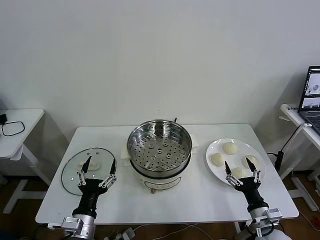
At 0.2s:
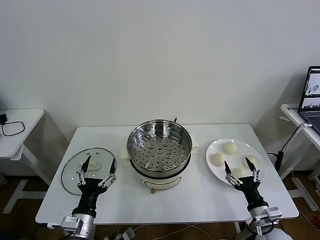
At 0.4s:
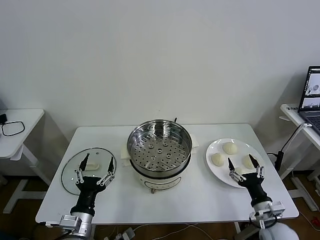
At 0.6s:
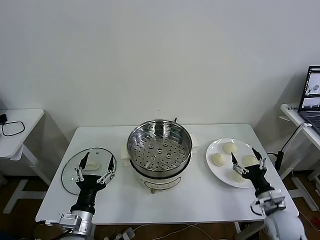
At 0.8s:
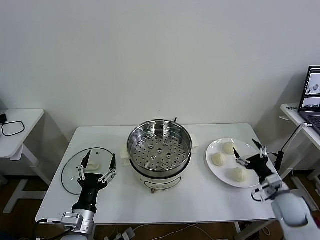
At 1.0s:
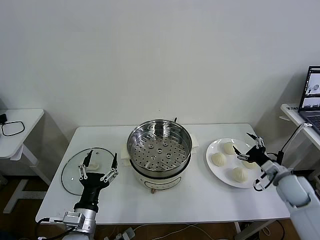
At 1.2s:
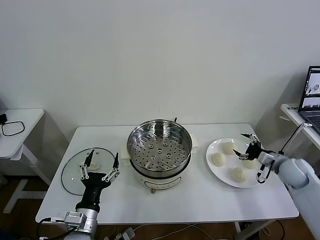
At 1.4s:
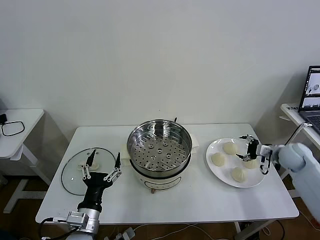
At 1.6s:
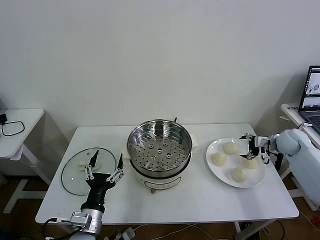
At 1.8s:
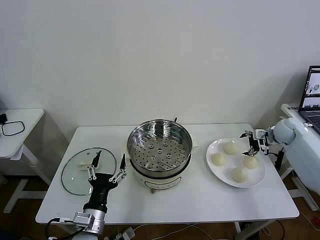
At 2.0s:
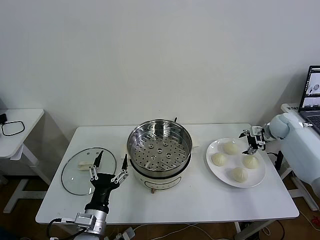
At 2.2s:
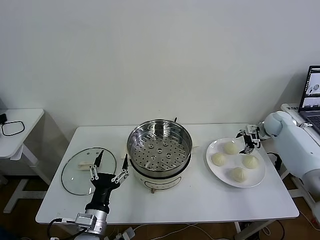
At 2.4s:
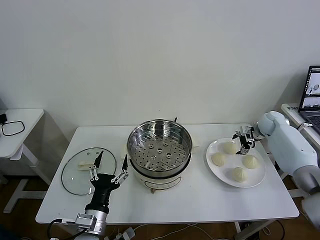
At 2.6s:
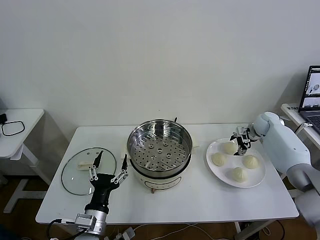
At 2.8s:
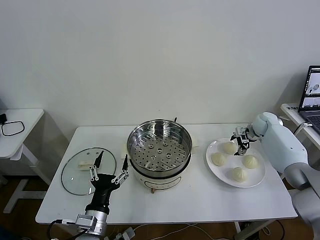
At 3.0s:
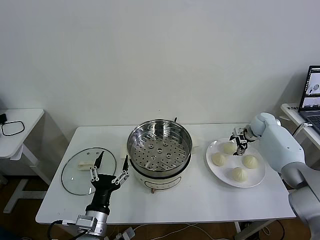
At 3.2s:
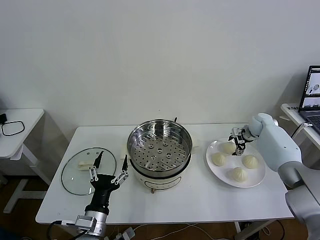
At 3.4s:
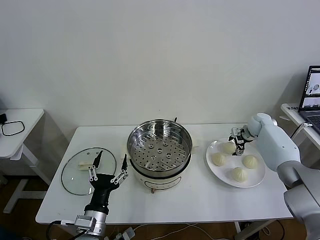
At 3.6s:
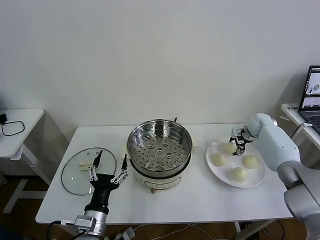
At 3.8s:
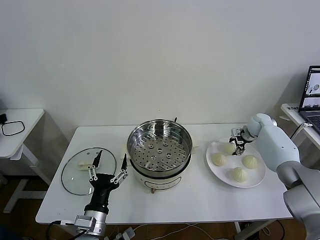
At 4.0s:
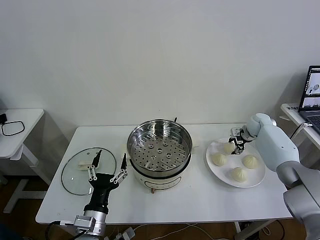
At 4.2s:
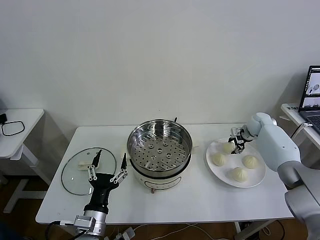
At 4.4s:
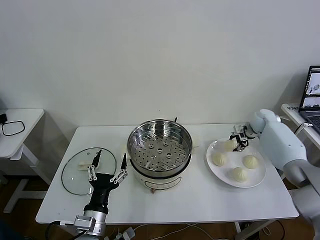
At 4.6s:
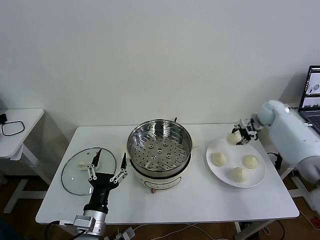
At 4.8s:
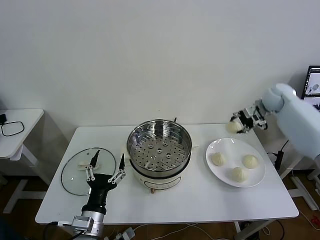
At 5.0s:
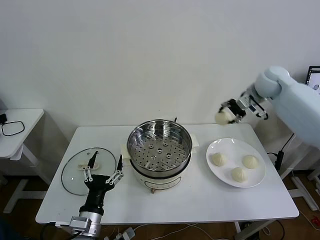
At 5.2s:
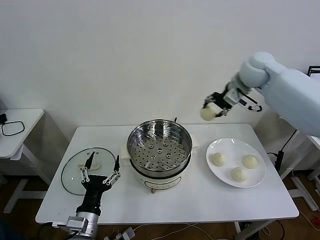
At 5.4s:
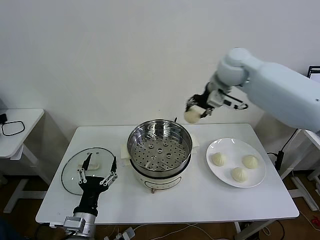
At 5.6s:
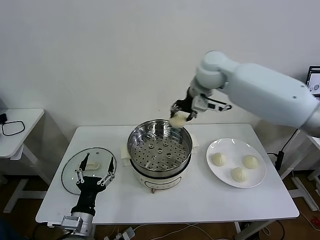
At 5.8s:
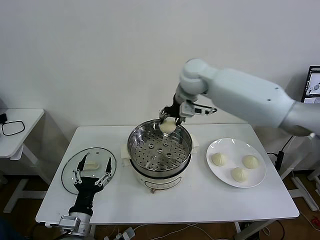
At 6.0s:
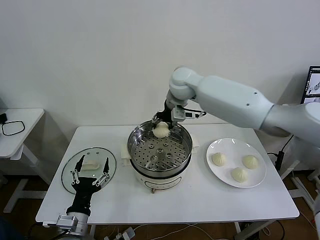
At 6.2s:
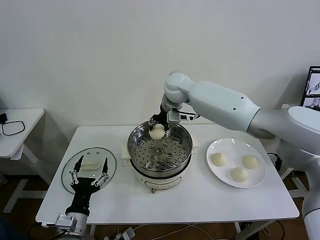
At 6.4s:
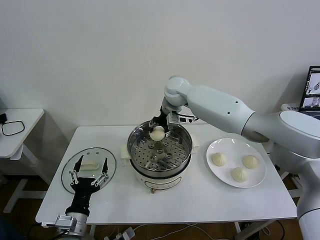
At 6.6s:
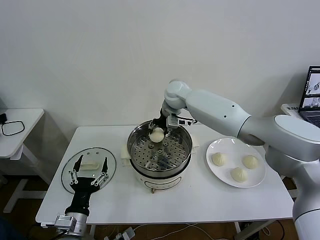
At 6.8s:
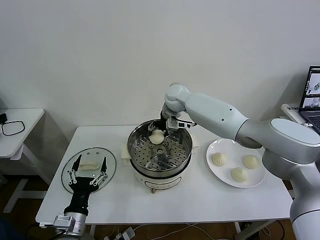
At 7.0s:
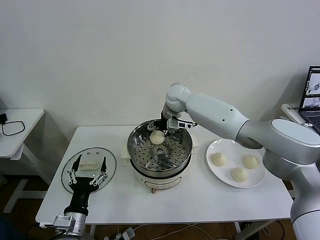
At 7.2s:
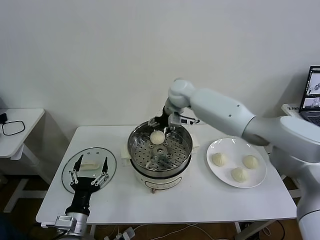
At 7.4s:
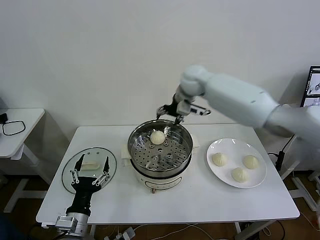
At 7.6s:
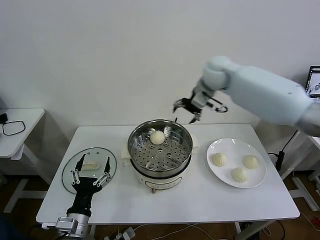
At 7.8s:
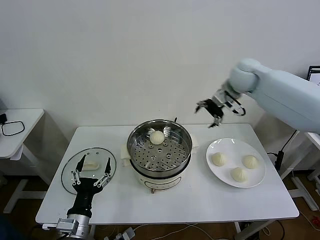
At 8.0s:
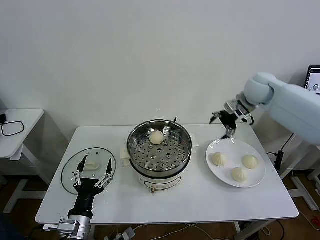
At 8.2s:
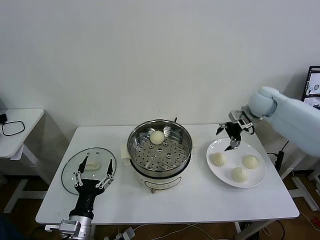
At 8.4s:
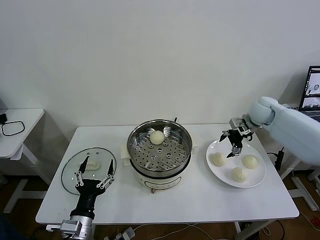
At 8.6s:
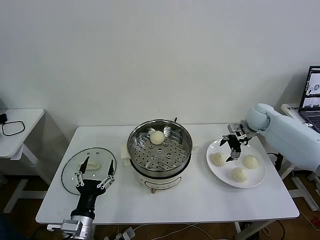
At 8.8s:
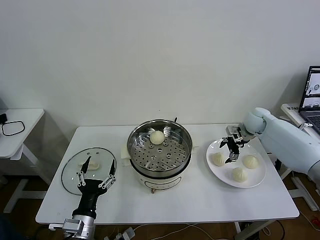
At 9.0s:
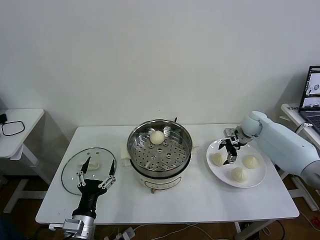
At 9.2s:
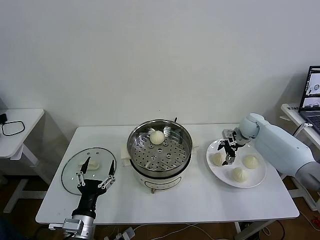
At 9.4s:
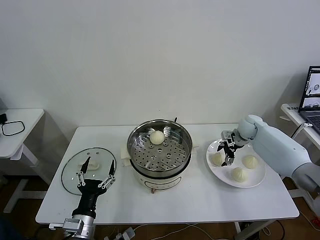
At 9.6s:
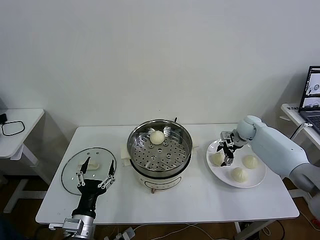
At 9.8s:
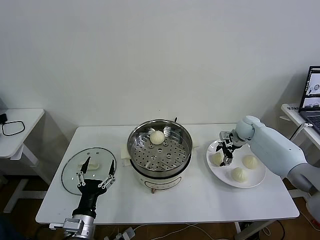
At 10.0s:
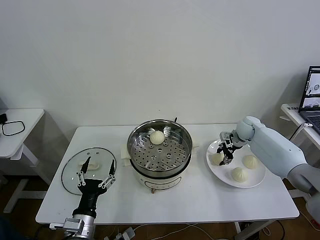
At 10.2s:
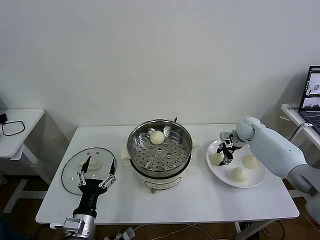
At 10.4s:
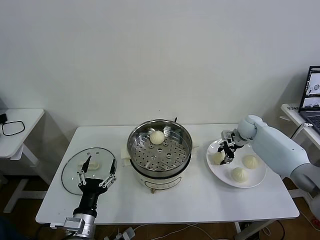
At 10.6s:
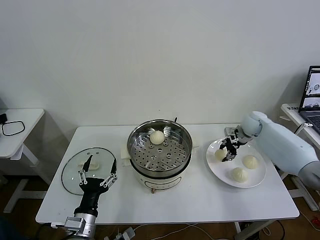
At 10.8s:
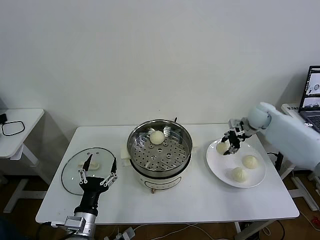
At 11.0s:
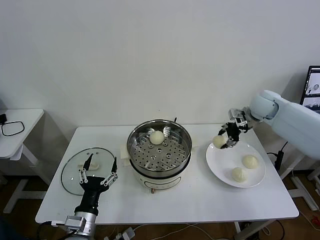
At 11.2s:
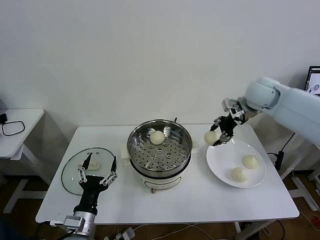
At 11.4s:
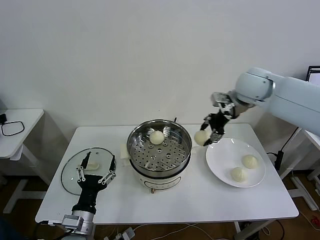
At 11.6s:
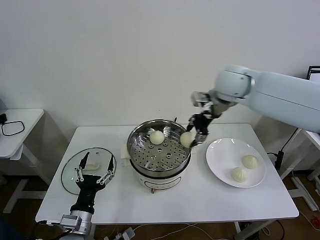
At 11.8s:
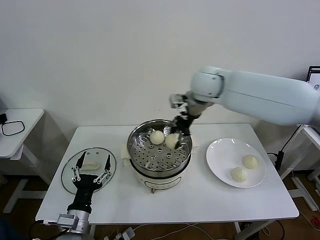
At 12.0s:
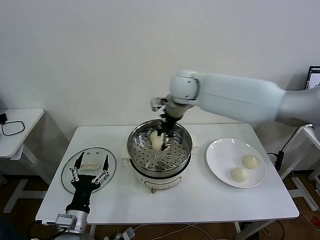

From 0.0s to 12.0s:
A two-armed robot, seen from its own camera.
Task of the whole recording: take steamed baozi put them in steamer then cover it.
Step, from 0.0s to 3.6s: Grasp the baozi in the plate with right gripper.
Step, from 3.8s to 7.0s: Place the baozi on the steamer with right gripper.
Step, from 7.2s to 10.0s: Grasp the baozi in the plate with right gripper.
From 1.6s to 3.0s: The right gripper is displaced forward and to the left by roughly 10 cm.
From 3.0s to 4.4s: The right gripper closes its fingers.
From 4.4s to 6.0s: The left gripper is displaced to the left by approximately 5 cm. Meanwhile the right gripper travels to the left and upward by about 40 cm.
From 6.0s to 7.6s: The right gripper is displaced to the right by roughly 15 cm, and opens its fingers.
From 7.6s to 9.0s: The right gripper moves downward and to the right, approximately 25 cm.
From 9.0s to 10.4s: The right gripper closes.
From 10.4s to 12.0s: The right gripper is displaced to the left and upward by some 40 cm.

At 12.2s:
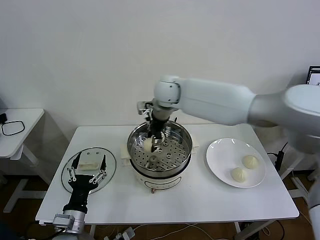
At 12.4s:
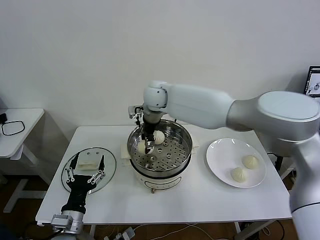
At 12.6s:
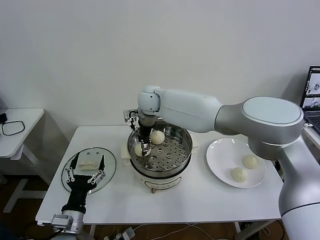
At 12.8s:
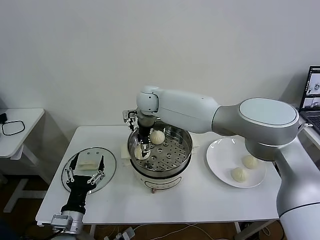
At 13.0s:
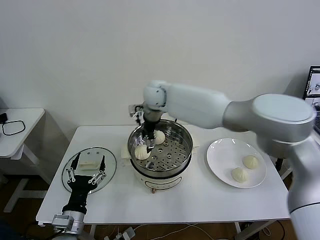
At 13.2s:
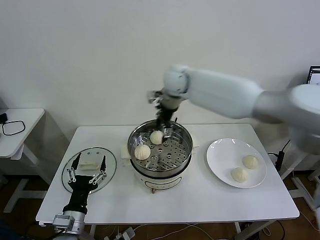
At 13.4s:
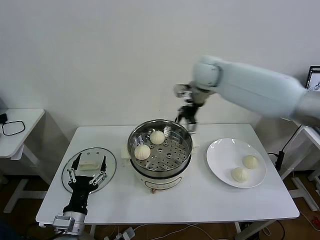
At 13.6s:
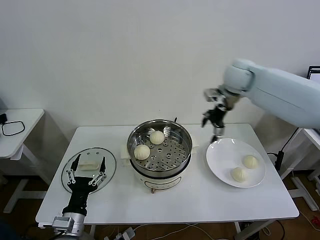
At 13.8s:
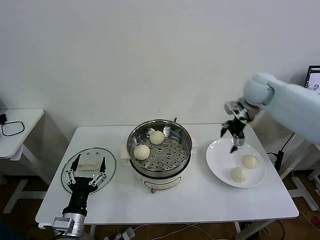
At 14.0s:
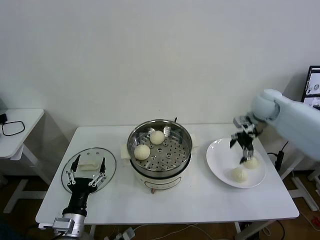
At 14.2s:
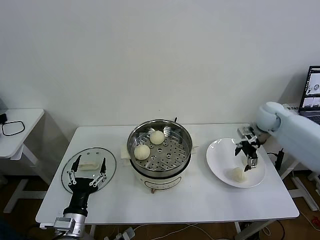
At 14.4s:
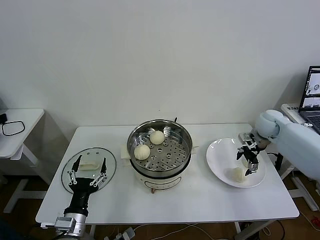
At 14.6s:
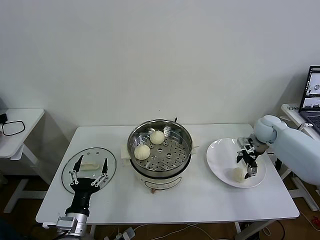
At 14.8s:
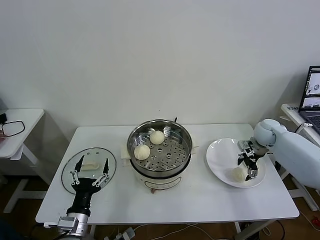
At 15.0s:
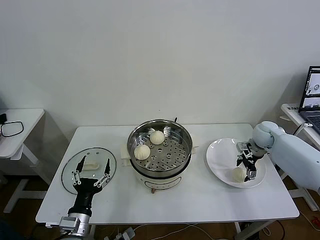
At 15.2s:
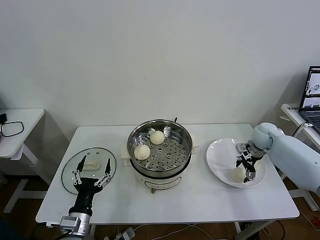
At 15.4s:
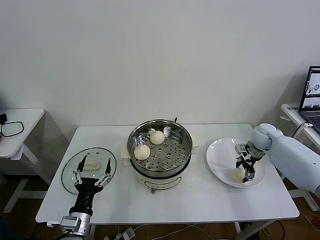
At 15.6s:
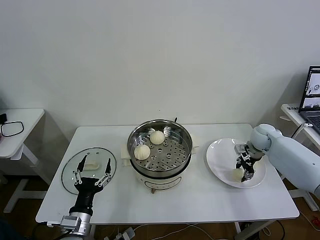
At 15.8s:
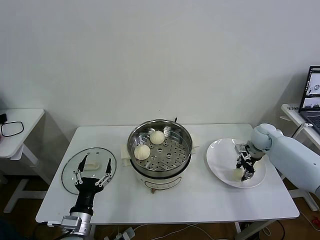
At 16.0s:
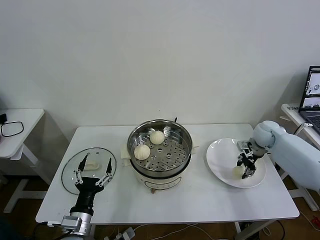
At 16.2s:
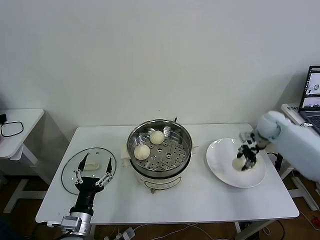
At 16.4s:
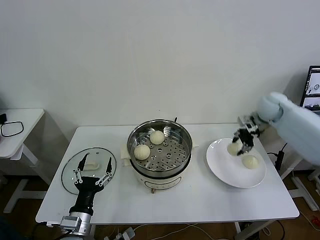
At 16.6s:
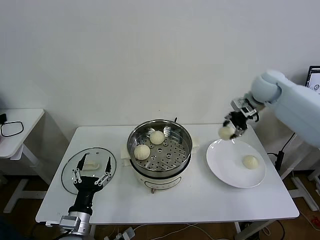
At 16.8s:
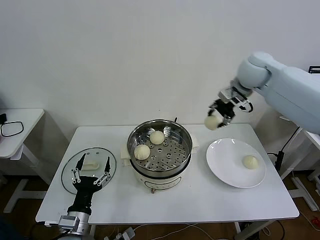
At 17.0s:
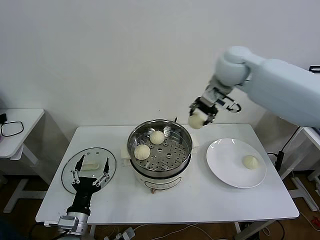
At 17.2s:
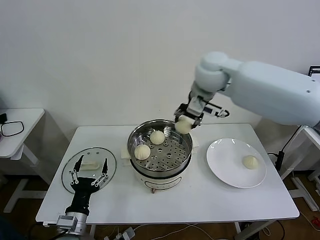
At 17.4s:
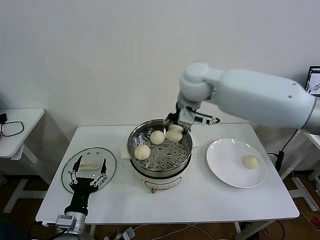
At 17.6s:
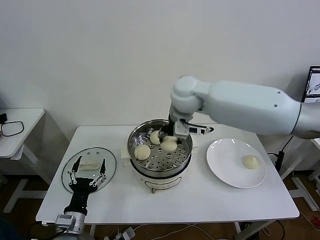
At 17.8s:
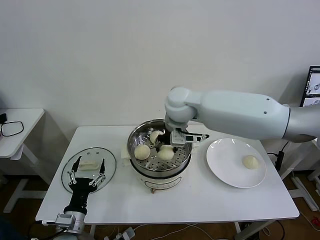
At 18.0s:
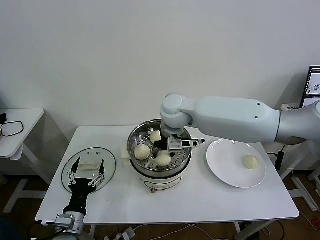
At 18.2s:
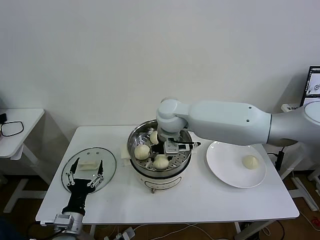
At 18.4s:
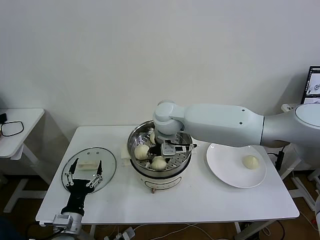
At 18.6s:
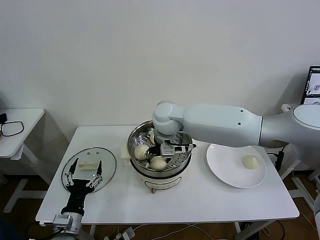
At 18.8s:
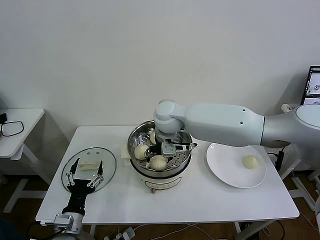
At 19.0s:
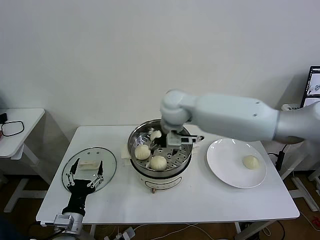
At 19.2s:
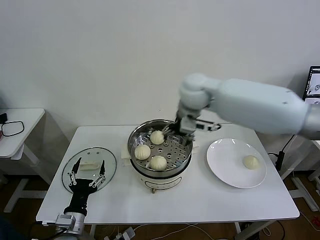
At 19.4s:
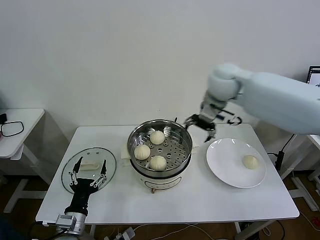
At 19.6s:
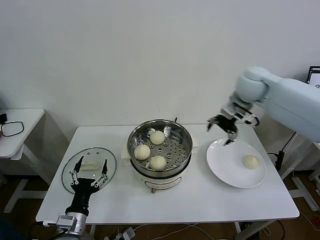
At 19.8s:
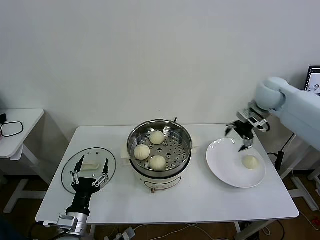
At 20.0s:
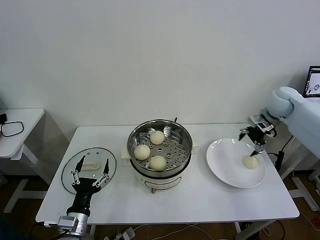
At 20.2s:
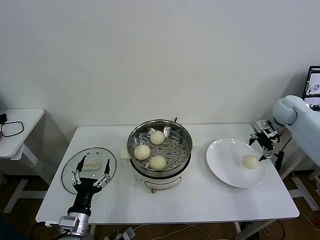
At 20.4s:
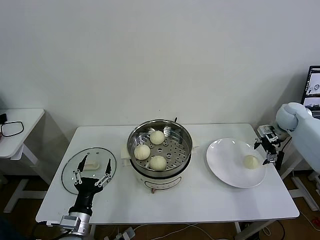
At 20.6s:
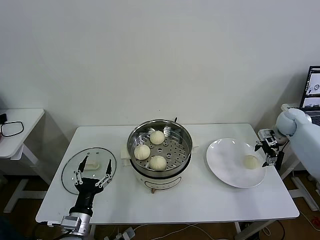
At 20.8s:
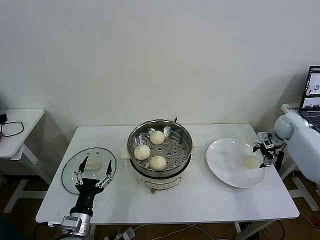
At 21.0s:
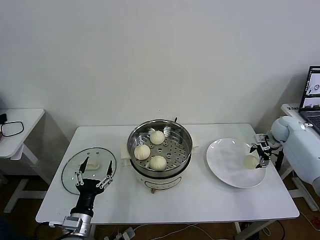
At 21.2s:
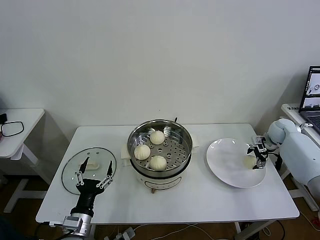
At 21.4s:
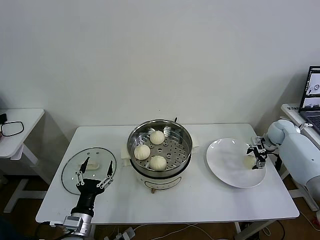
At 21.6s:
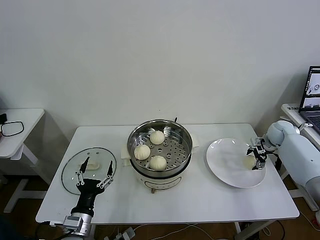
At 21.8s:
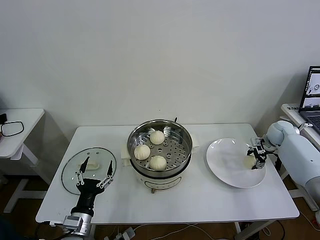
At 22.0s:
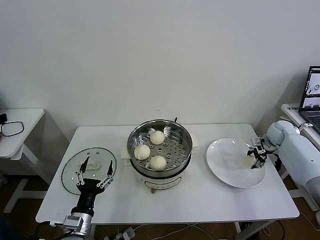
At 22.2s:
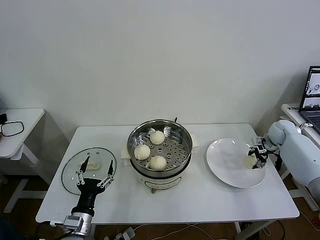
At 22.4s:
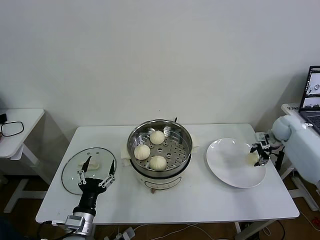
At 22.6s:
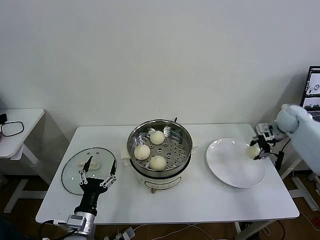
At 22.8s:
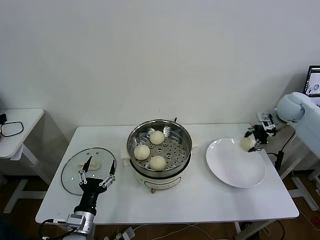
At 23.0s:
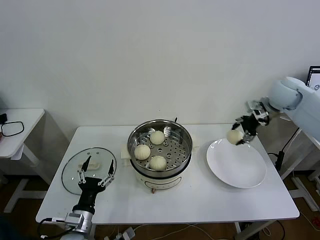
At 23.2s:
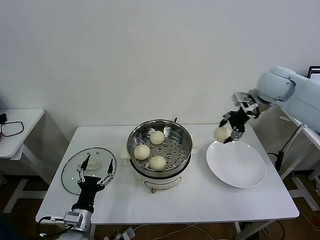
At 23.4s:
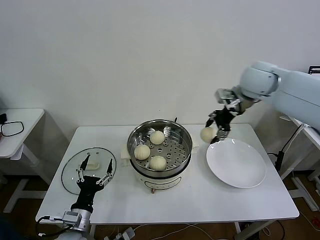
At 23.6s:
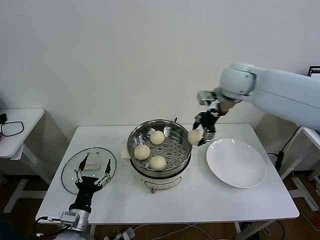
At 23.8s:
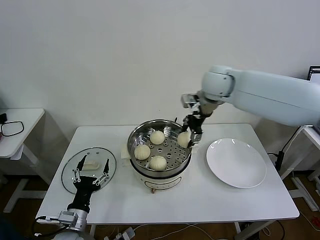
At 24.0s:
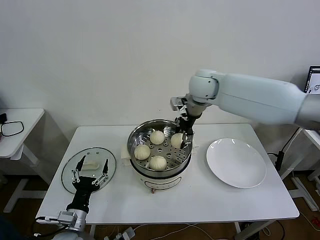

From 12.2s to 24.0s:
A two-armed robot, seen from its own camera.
Task of the whole recording: take steamed baozi put them in steamer then cover it.
Step, from 13.0s to 15.4s: Grasp the baozi in the plate with right gripper.
Step, from 15.8s to 18.4s: Place the baozi on the steamer with right gripper.
Step, from 18.8s to 21.8s: Grasp the baozi in the plate with right gripper.
From 12.2s to 13.6s: The right gripper moves to the right, roughly 25 cm, and opens.
From 13.6s to 15.2s: The right gripper moves downward and to the right, roughly 25 cm.
From 15.2s to 16.6s: The right gripper travels upward by roughly 25 cm, and closes.
From 16.6s to 18.2s: The right gripper shifts roughly 30 cm to the left.
From 18.2s to 19.6s: The right gripper is displaced to the right by some 25 cm, and opens.
From 19.6s to 21.0s: The right gripper goes roughly 30 cm downward and to the right.
From 21.0s to 22.6s: The right gripper is displaced upward by roughly 5 cm, and closes its fingers.
From 22.6s to 24.0s: The right gripper heads to the left, covering roughly 35 cm.
